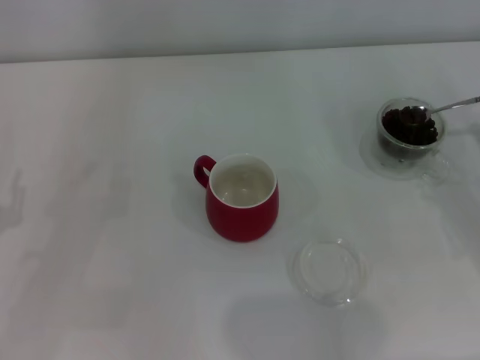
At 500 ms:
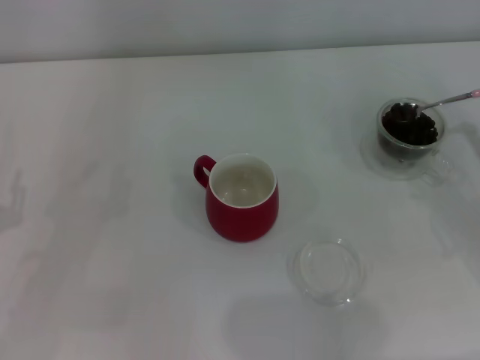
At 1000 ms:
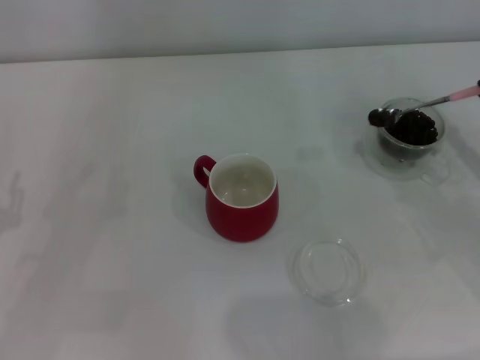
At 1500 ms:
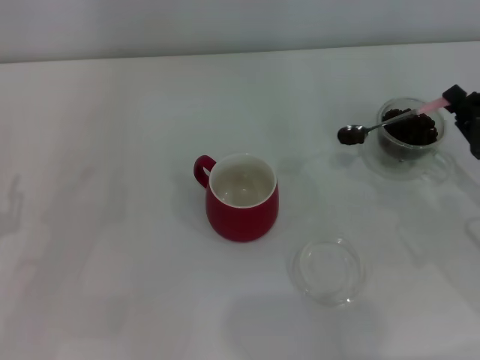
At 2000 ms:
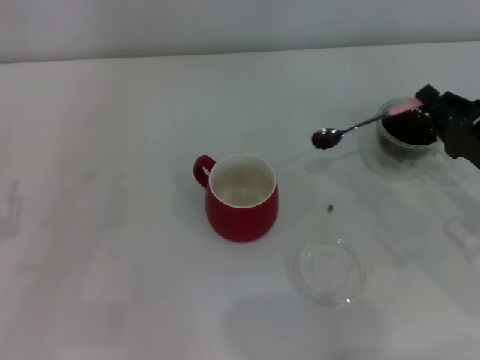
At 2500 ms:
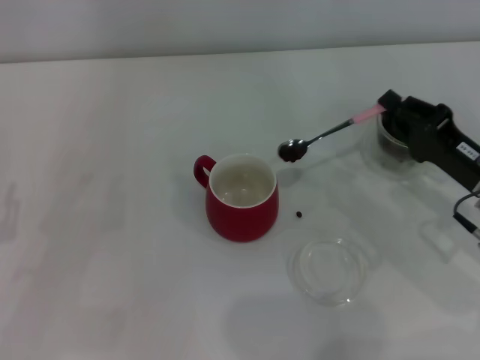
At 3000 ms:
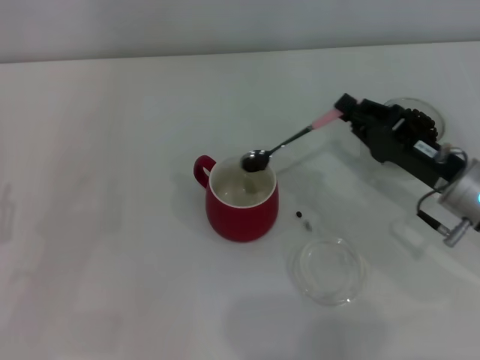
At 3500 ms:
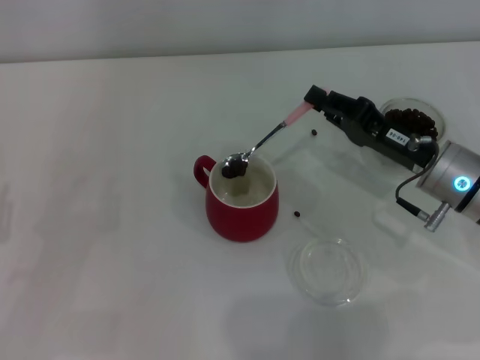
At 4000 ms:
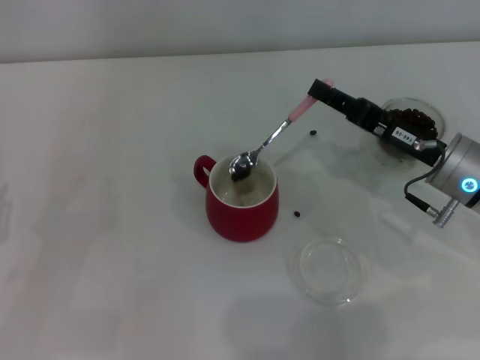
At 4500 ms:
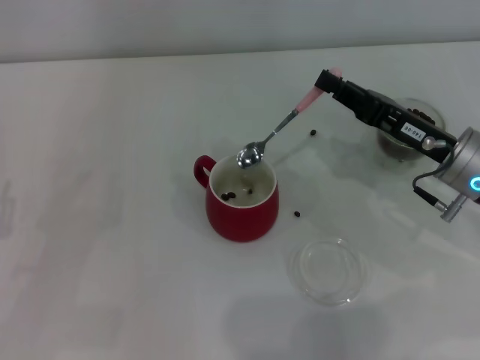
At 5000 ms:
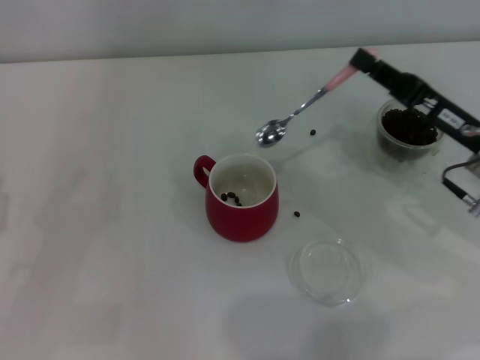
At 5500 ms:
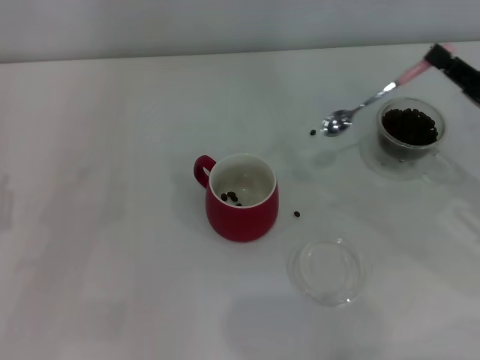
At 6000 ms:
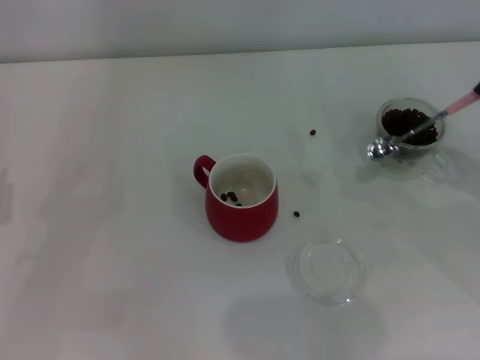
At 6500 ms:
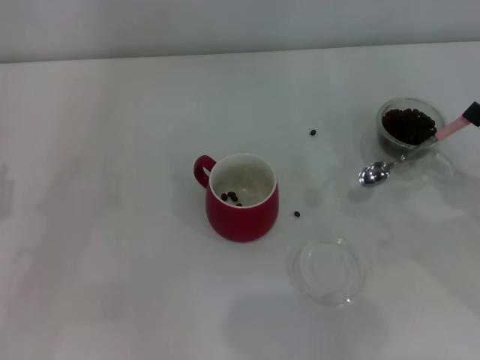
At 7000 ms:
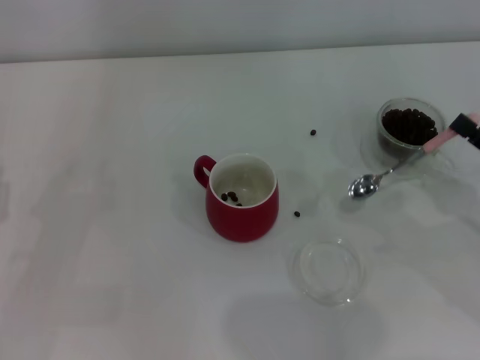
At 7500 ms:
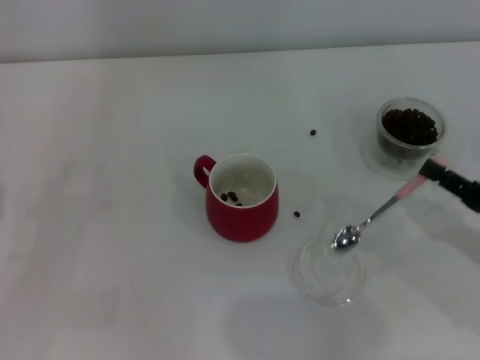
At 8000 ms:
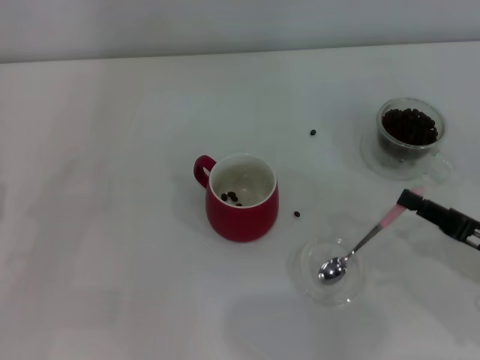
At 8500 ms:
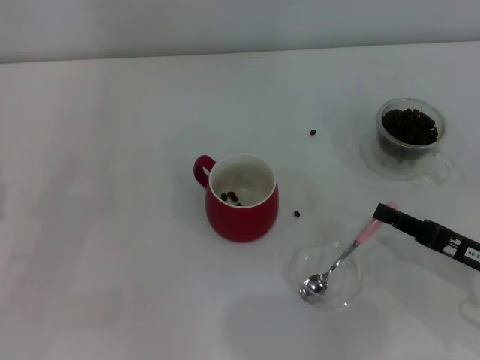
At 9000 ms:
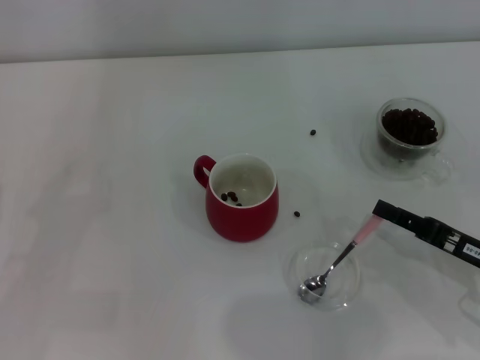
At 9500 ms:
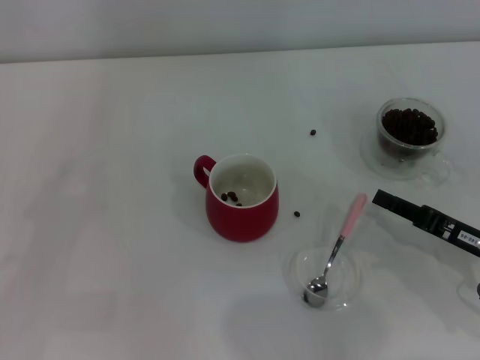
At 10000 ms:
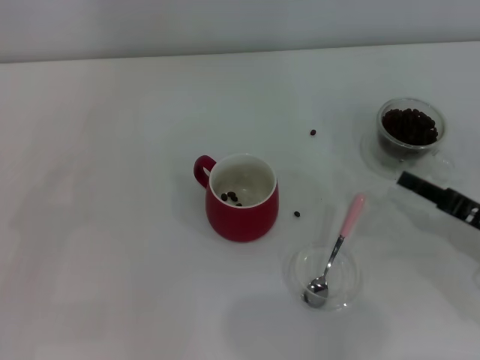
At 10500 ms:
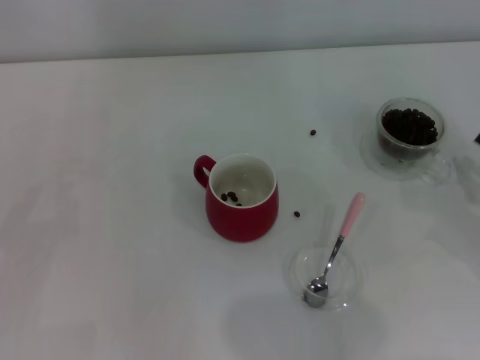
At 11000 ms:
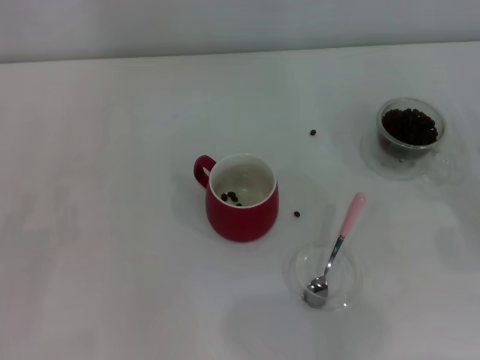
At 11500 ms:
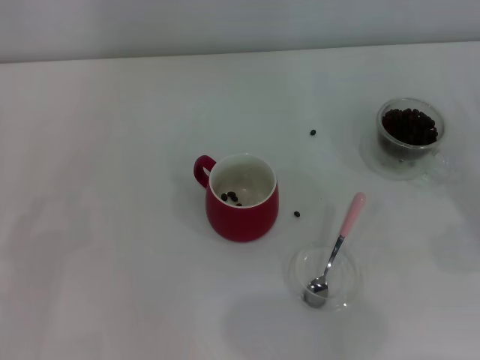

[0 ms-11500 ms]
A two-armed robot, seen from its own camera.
Task of the whole recording: Use a pink spoon to take out the coffee beans from the glass and pour them into the red cup.
Step, 0 ms to 4500 ms: Scoop a spoonful of beans into the cup with the right gripper.
Step, 5000 ms to 9500 ms: Place the spoon back in its original place with the right gripper.
0 ms to 2000 ms: The right gripper heads to the left, covering roughly 5 cm.
2000 ms to 4000 ms: The right gripper moves to the left, approximately 5 cm.
4000 ms to 6000 ms: The right gripper is displaced to the right and backward by approximately 15 cm.
6000 ms to 7500 ms: There are only small adjustments of the grippers.
7500 ms to 9500 ms: The grippers stay close to where they were, moving slightly.
9500 ms to 11500 ms: The right gripper heads to the right, covering roughly 10 cm.
